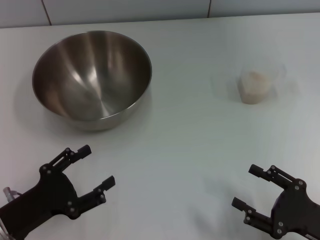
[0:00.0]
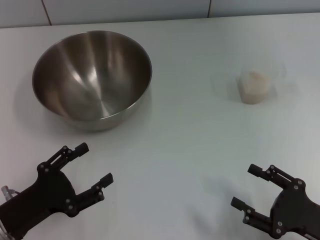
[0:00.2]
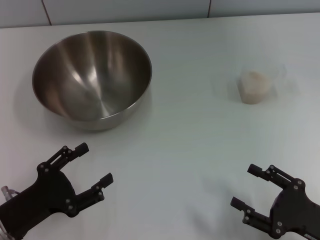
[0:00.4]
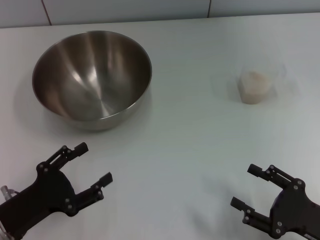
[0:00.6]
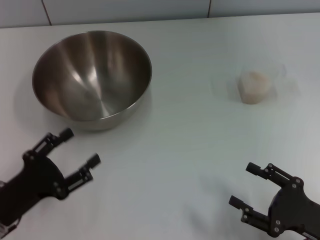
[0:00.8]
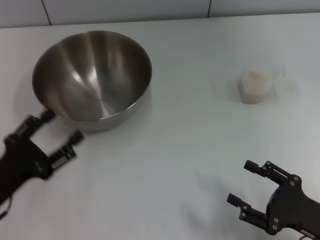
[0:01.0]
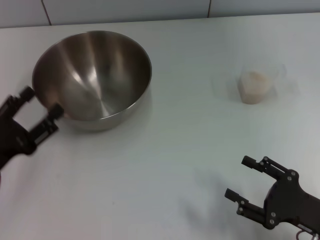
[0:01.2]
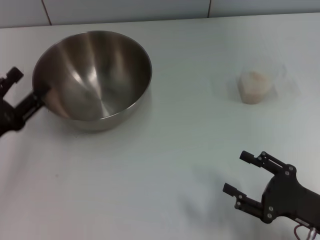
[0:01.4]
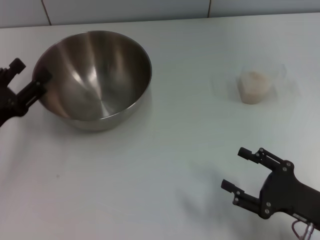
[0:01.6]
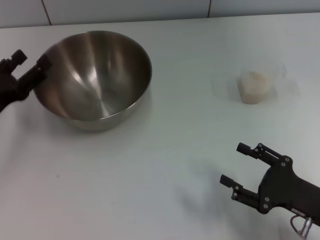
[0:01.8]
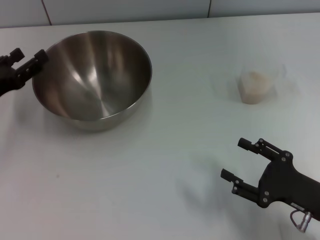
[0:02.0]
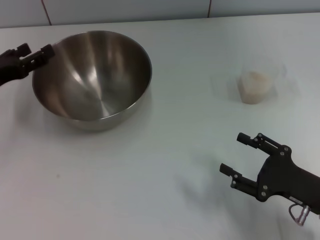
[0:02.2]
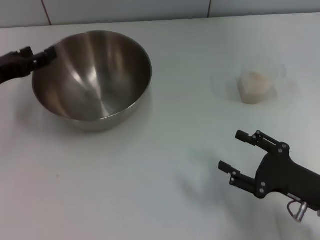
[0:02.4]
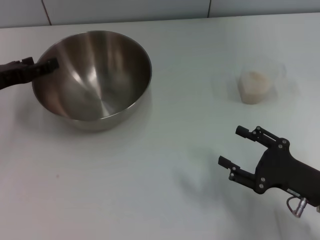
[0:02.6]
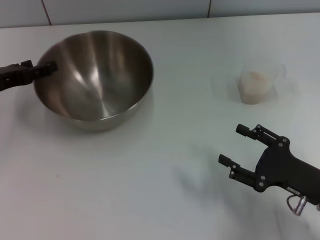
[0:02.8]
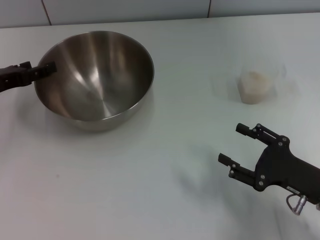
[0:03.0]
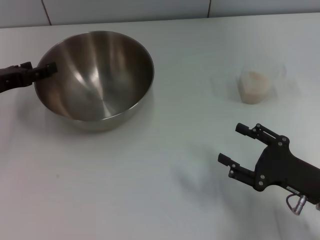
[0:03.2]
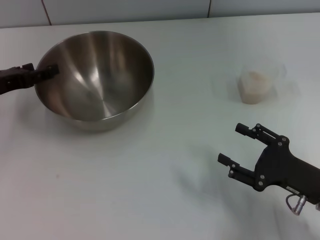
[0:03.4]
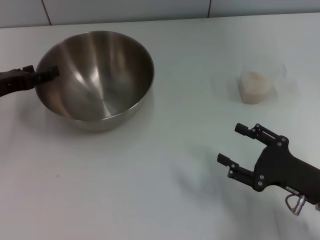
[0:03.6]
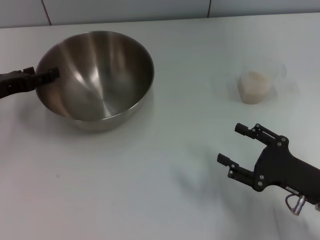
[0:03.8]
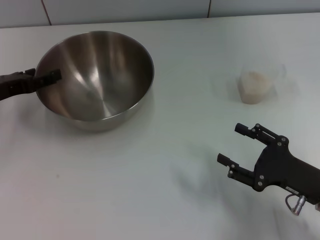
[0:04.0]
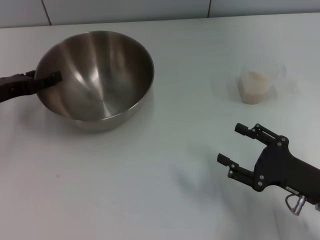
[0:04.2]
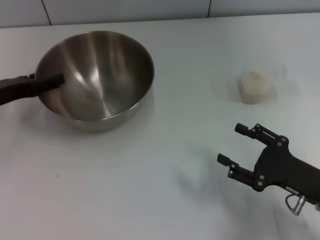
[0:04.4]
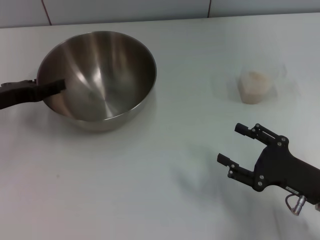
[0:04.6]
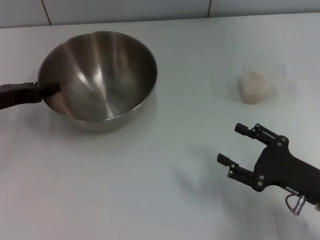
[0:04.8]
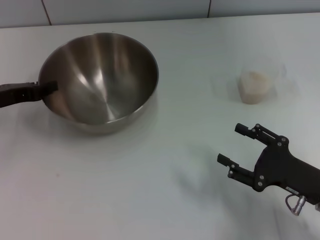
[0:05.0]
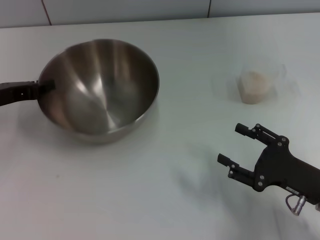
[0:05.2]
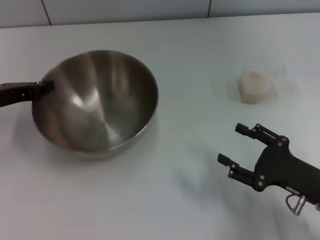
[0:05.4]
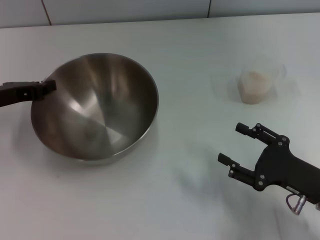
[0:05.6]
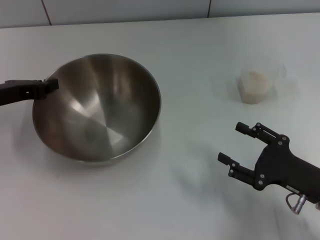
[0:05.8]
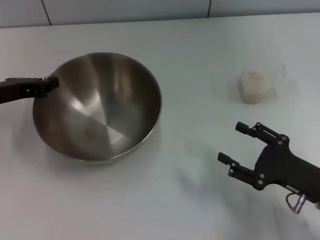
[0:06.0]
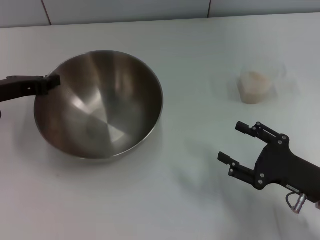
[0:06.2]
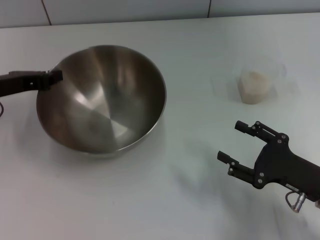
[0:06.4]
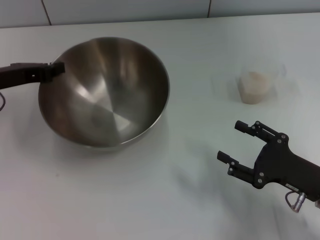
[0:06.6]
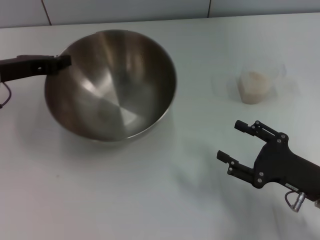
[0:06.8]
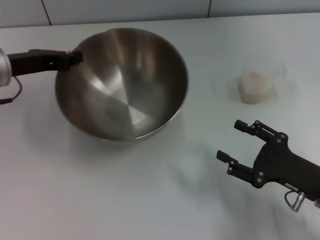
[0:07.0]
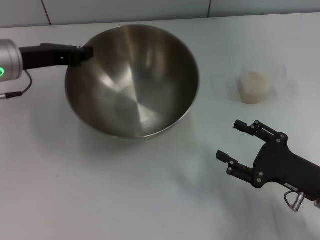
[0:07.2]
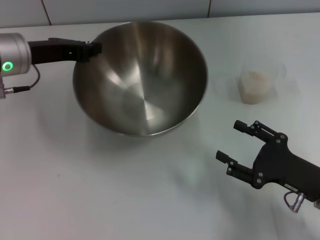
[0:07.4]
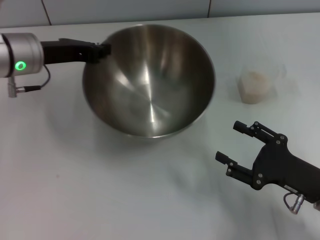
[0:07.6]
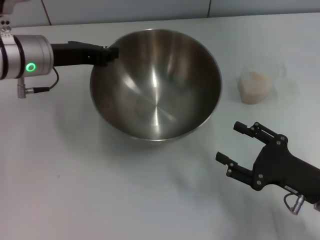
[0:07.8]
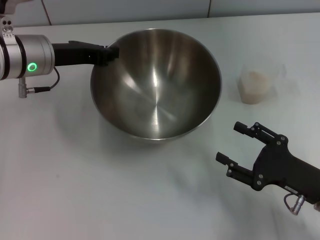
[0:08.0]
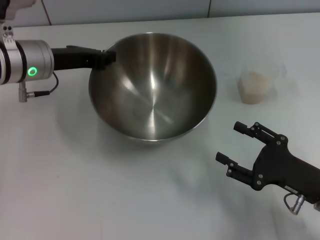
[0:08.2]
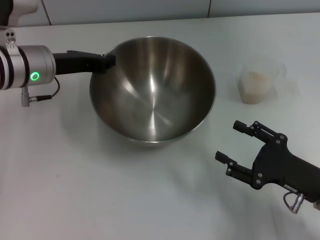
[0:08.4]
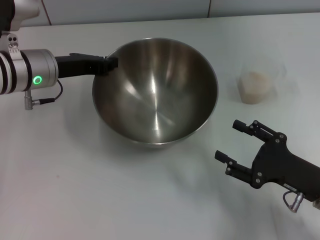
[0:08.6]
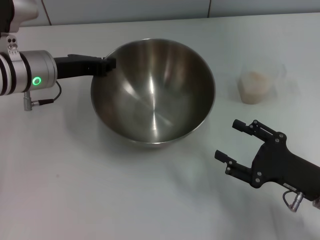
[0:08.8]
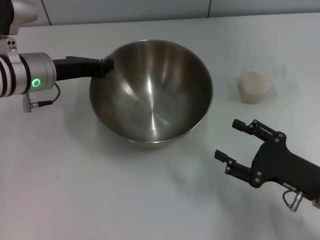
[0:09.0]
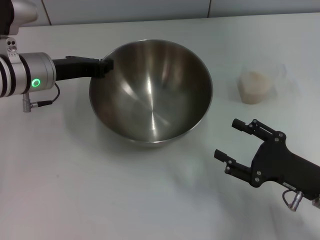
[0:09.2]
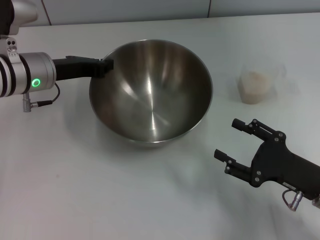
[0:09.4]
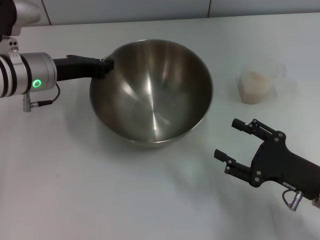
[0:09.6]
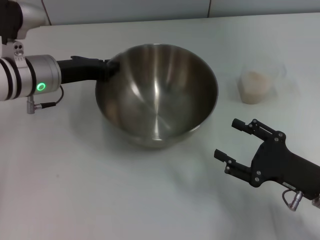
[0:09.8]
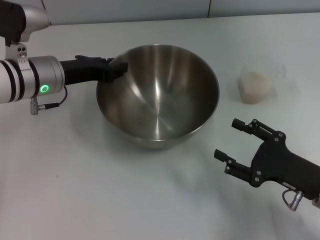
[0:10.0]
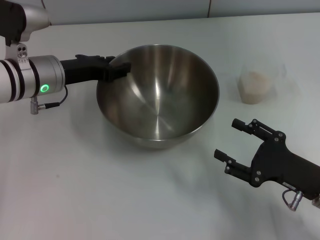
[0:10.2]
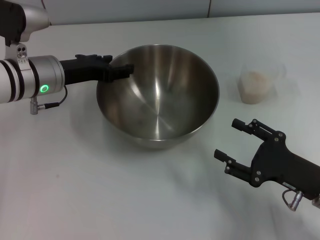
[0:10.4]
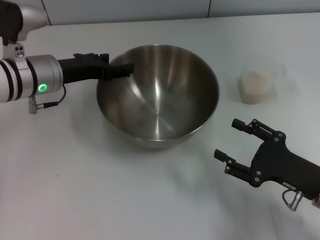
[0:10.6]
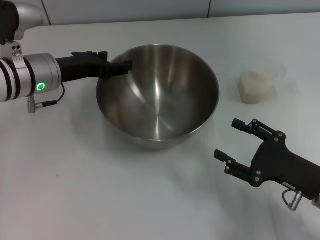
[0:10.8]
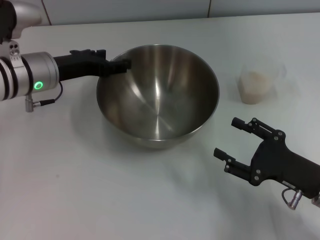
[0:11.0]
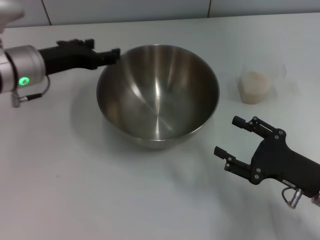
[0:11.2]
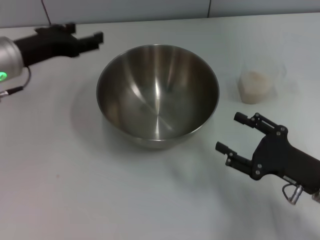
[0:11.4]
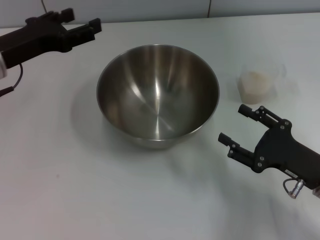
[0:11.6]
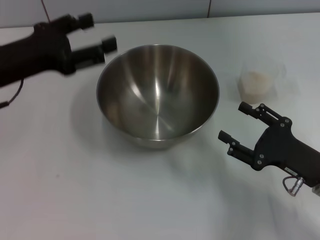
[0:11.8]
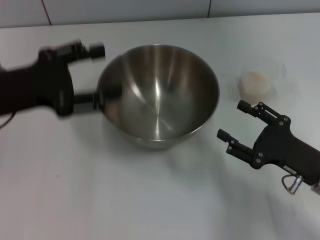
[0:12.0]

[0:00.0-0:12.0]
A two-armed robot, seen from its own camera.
Task of the whole recording: Place the bowl in the middle of the table with one hand and pour the rice from the grain cup into it with the other hand.
Step, 0:00.6 to 0:11.0: Move the bowl in the center of view with left gripper.
0:00.0 to 0:01.6: The left gripper travels forward by roughly 10 cm.
0:01.6 to 0:03.0: The left gripper is displaced forward by roughly 10 cm.
0:03.0 to 0:04.4: The two grippers keep their place.
0:04.4 to 0:06.0: The left gripper closes its fingers.
0:06.0 to 0:07.6: The left gripper heads to the right, covering approximately 10 cm.
0:07.6 to 0:09.0: There are only small adjustments of the grippers.
0:09.0 to 0:10.4: The left gripper opens.
0:10.4 to 0:12.0: The left gripper heads backward, upward and to the left, covering about 15 cm, and opens up.

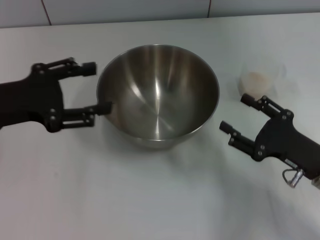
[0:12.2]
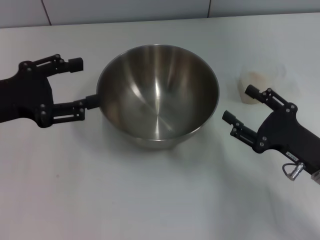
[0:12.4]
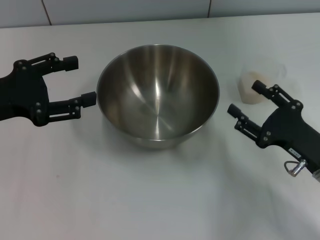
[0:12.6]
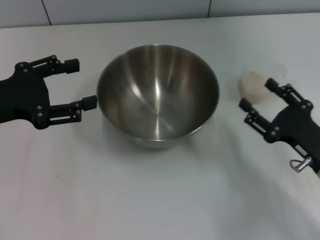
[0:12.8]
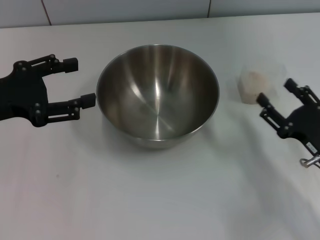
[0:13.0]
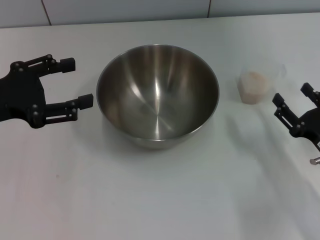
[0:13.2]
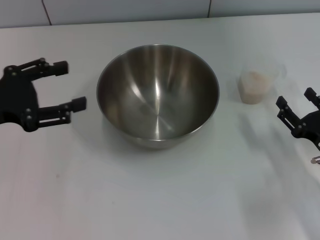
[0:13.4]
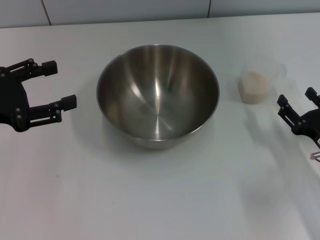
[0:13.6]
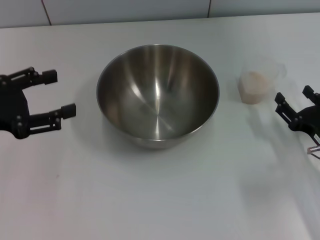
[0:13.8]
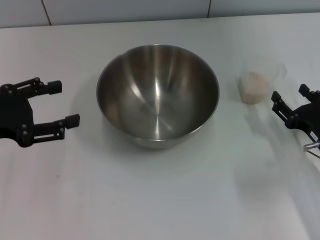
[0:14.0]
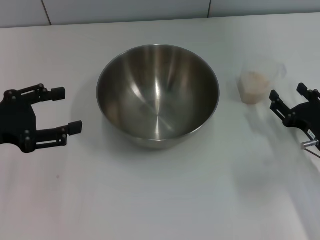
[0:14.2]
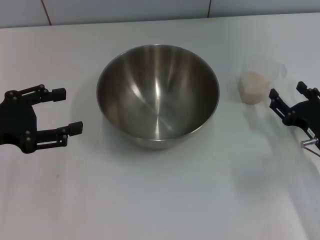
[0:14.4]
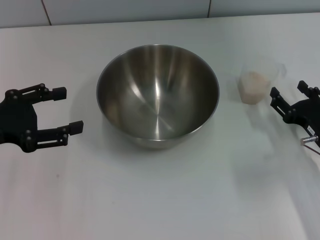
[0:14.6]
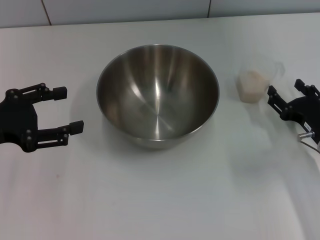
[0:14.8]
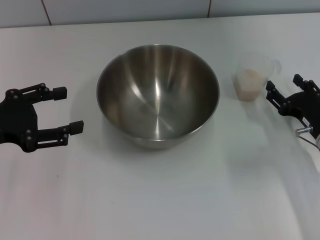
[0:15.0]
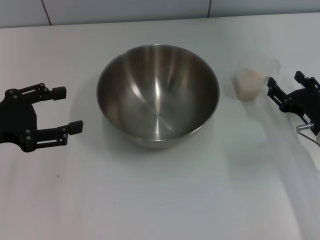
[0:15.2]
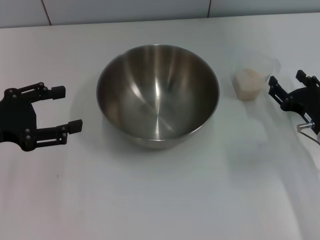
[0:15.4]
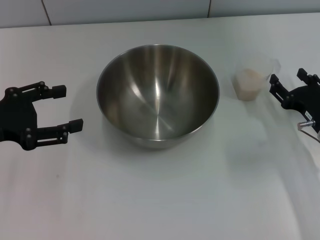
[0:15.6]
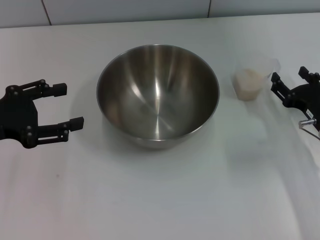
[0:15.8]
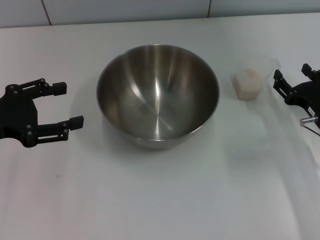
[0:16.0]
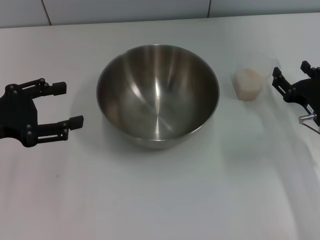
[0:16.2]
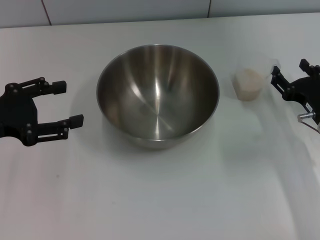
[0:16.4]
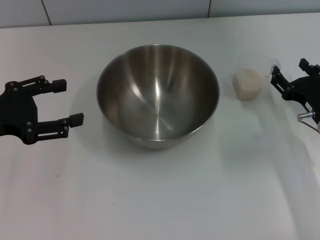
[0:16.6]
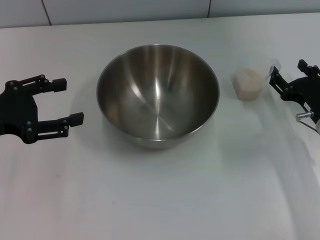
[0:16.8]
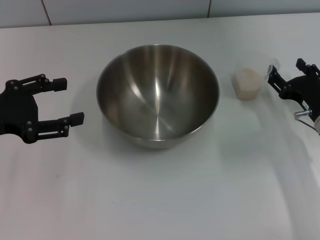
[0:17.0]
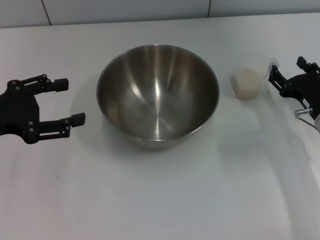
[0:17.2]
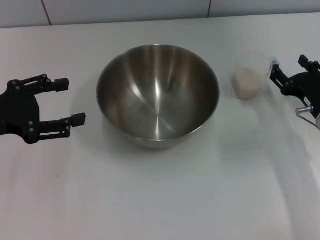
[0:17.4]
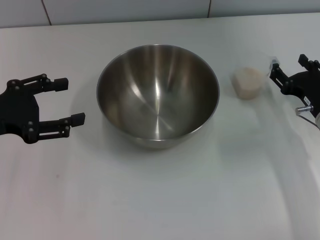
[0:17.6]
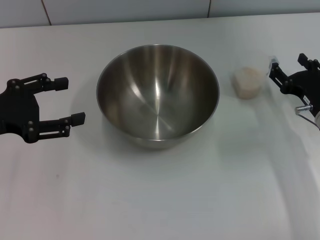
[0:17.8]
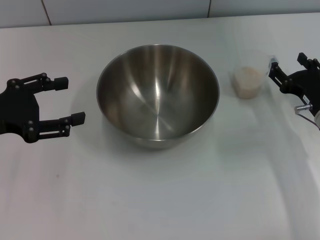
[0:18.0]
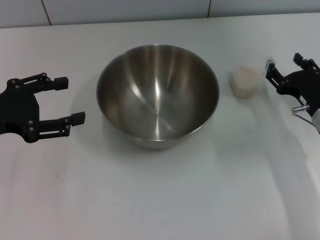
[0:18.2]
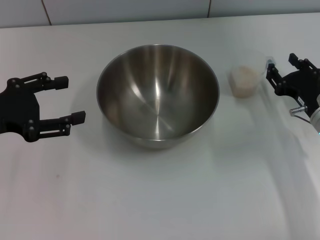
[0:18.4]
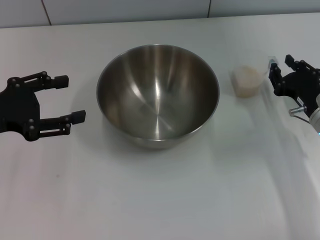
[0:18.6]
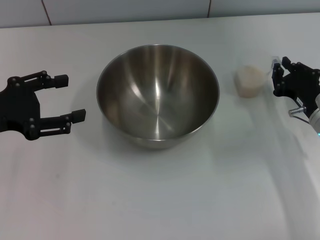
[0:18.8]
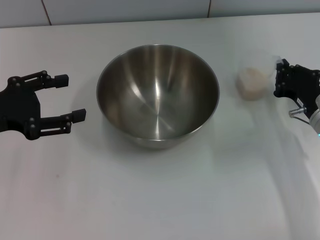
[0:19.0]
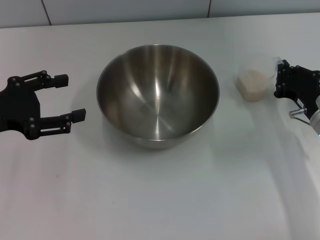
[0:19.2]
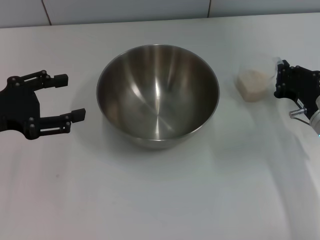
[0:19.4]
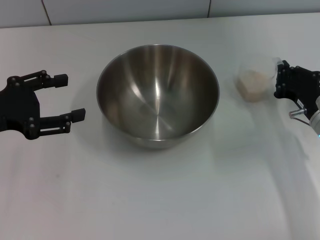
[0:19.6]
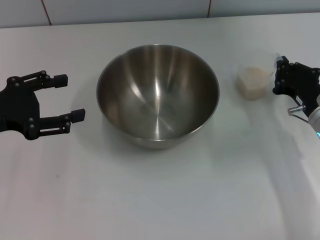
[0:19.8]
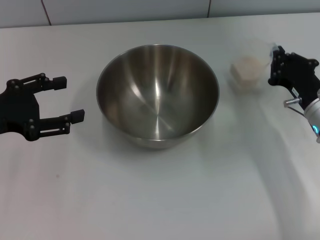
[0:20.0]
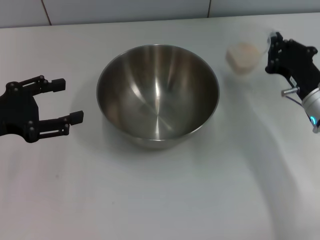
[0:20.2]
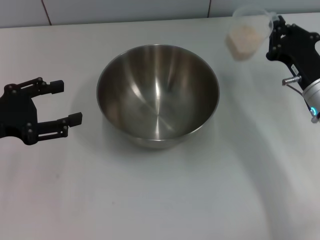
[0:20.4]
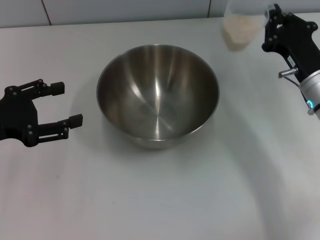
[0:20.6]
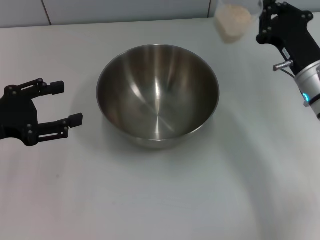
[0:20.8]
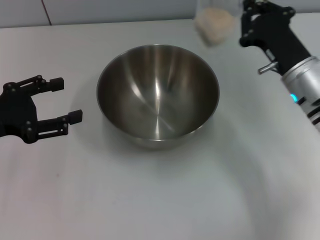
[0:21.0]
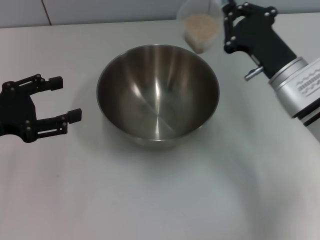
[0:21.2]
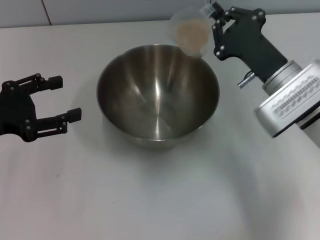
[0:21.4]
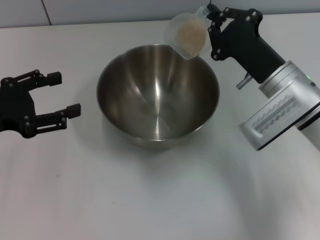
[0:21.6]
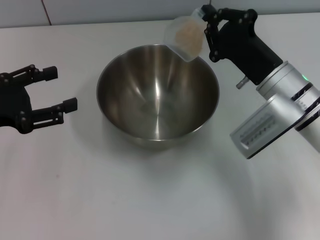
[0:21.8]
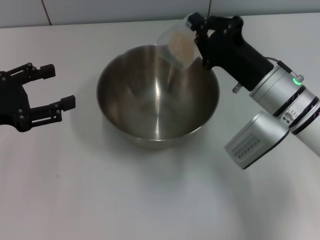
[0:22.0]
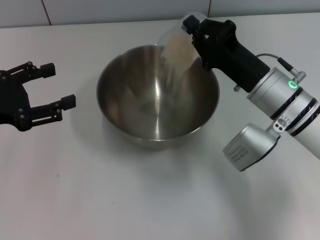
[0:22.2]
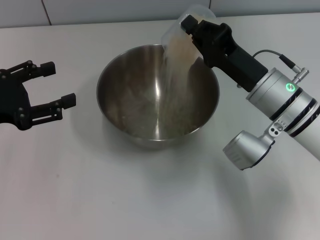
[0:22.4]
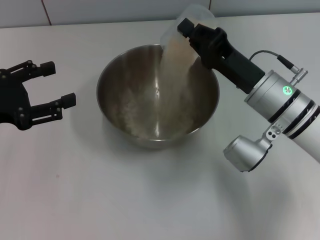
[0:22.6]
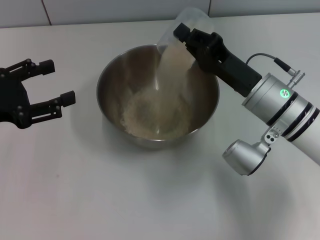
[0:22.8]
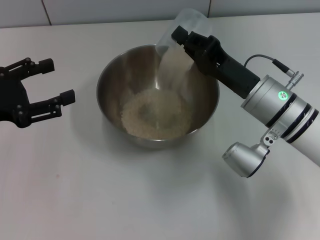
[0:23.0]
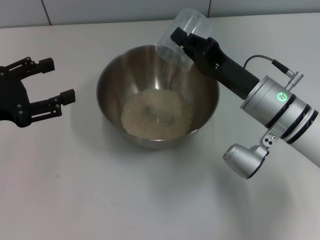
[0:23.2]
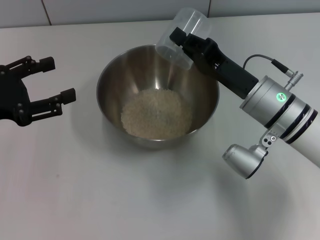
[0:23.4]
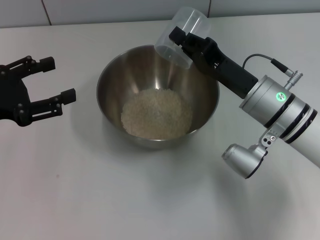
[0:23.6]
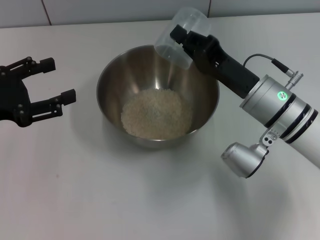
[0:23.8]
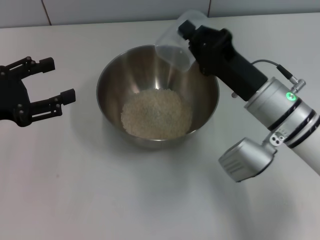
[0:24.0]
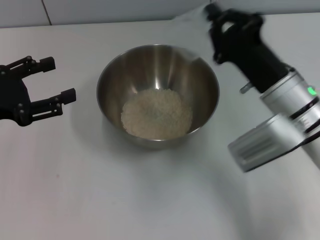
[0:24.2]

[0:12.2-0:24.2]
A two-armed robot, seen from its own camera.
Task of the whole recording: Place the bowl in the middle of the table with one hand and pour the rice from the grain cup into it with the other hand.
Step, 0:12.2 to 0:19.4: Grasp the cup with rice in it with right gripper.
Step, 0:19.6 to 0:23.8: Pour the rice from the cup into the bowl with the right gripper.
0:12.2 to 0:13.8: The right gripper shifts by about 5 cm.
0:13.8 to 0:16.6: The grippers stay close to where they were, moving slightly.
0:16.6 to 0:18.2: Neither gripper changes place.
0:18.2 to 0:19.8: The right gripper closes.
0:19.8 to 0:21.2: The right gripper shifts some 10 cm to the left and upward.
